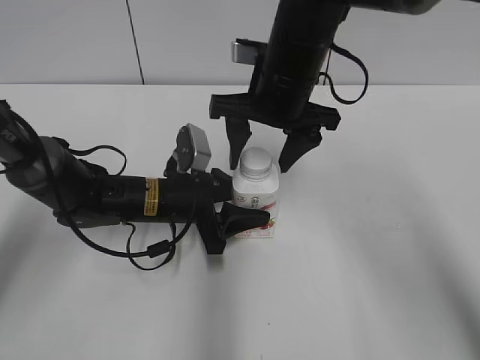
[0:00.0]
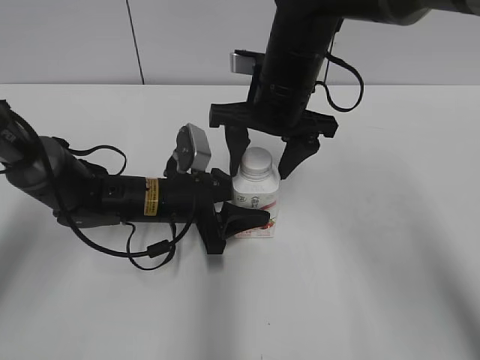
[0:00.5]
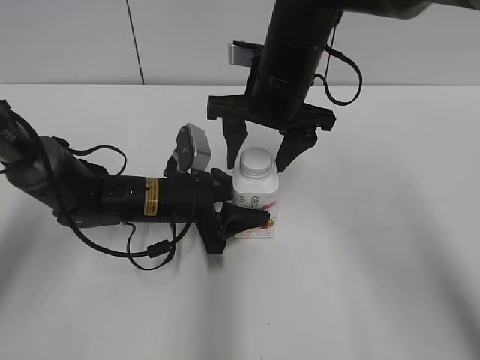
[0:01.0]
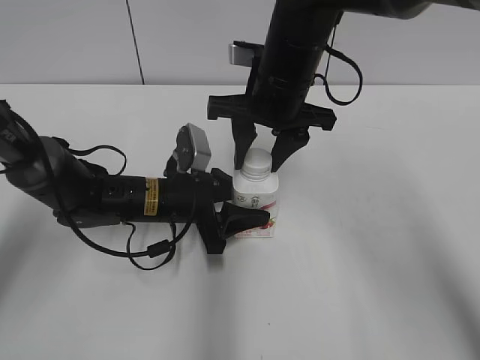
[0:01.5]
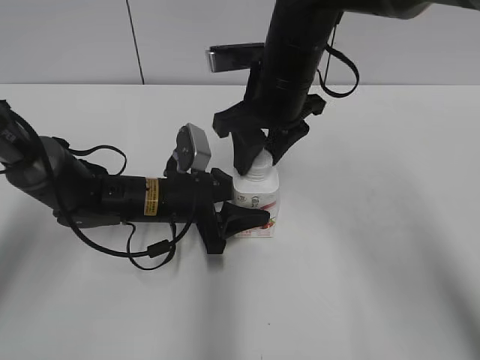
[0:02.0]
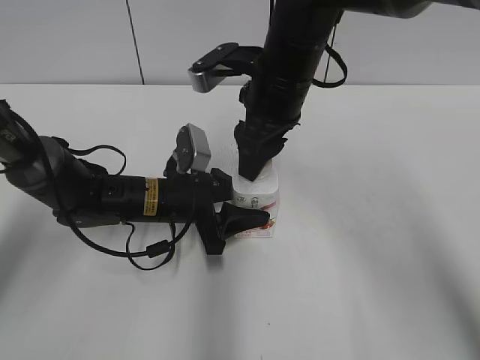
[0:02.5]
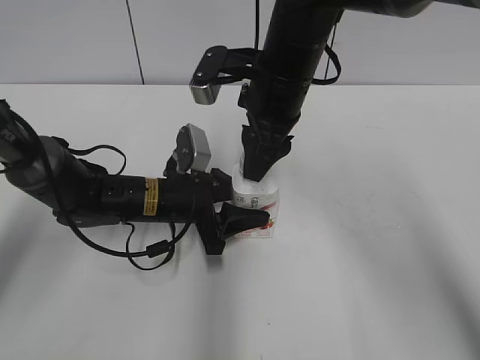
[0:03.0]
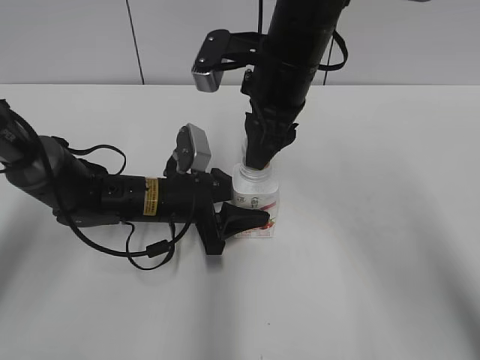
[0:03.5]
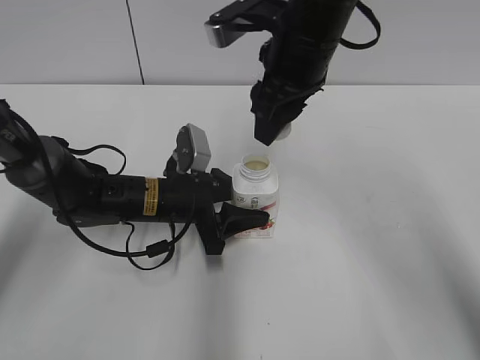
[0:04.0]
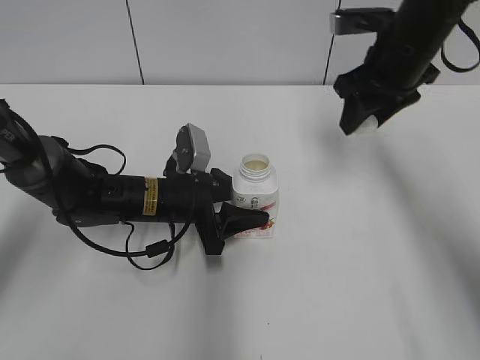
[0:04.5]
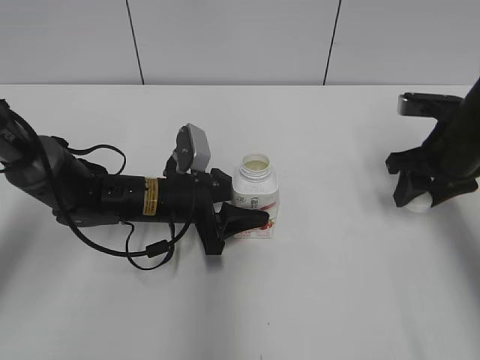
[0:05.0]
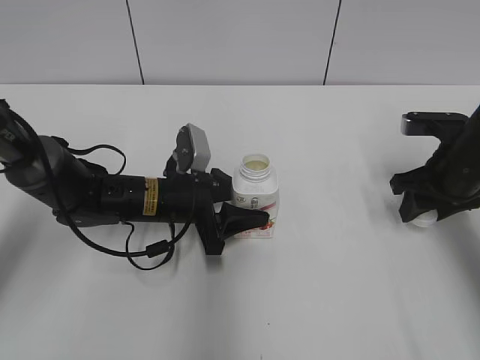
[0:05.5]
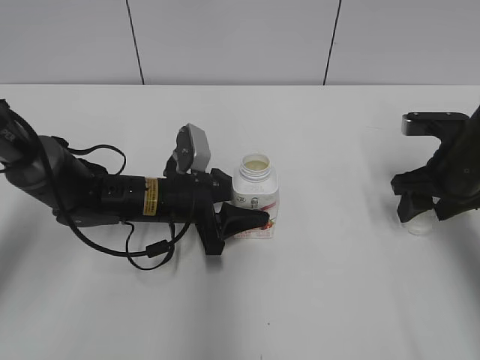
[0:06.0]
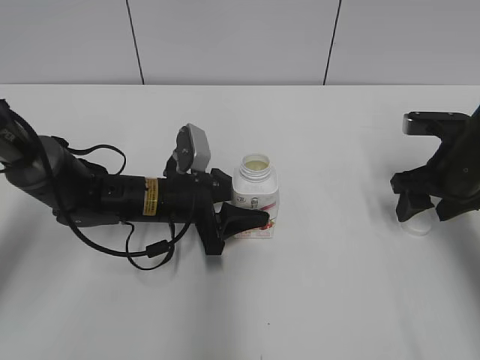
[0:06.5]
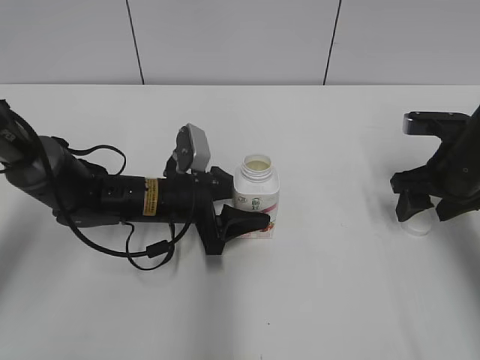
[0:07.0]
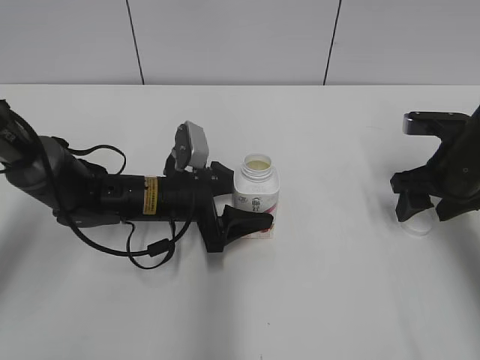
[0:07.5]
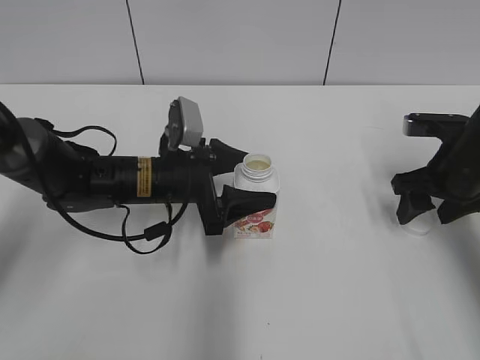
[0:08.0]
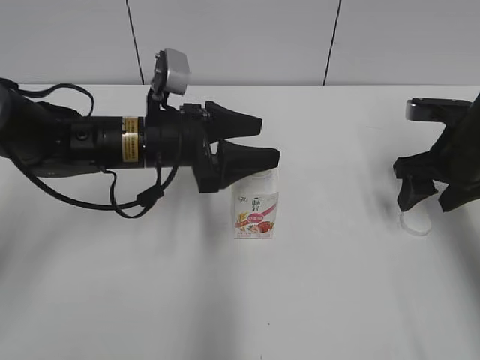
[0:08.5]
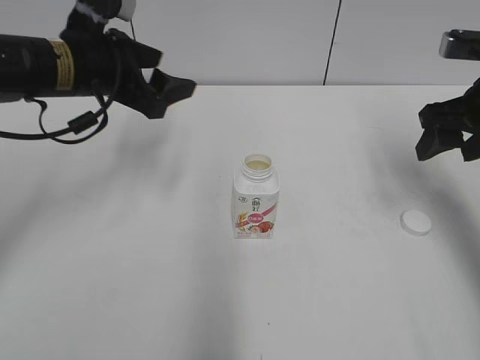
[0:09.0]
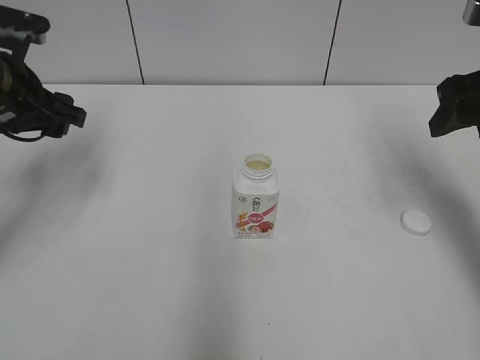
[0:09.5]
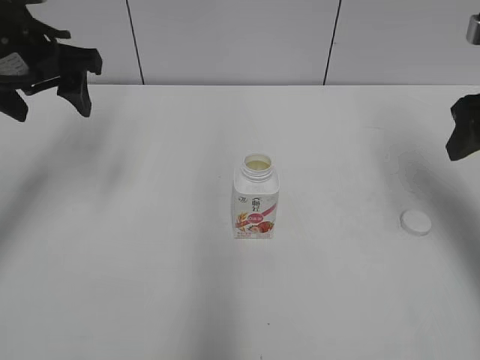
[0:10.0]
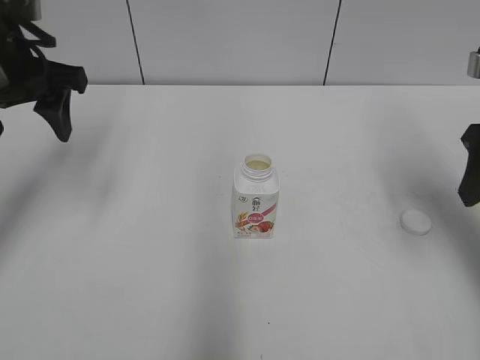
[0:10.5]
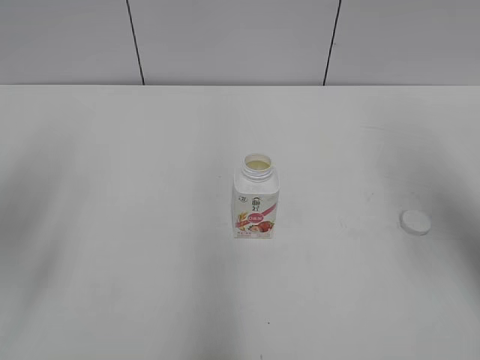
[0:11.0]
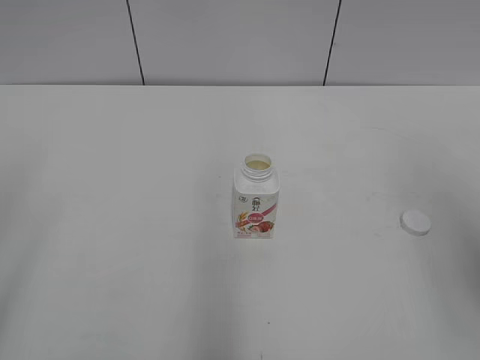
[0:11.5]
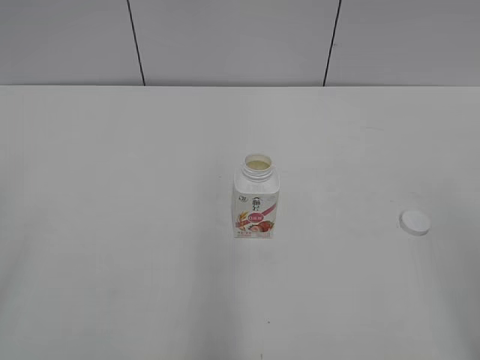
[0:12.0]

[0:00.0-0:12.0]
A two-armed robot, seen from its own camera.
Step, 0:04.0 to 0:06.0: Place the bottle cap on the right.
Step, 0:06.5 to 0:07.5: Place the Yili Changqing with the left hand.
0:00.0 to 0:02.0: The right gripper closes.
0:02.0 to 0:04.0: The right gripper changes place by approximately 5 cm.
0:04.0 to 0:06.0: The right gripper travels to the right and downward by roughly 25 cm, and opens its fingers.
0:06.0 to 0:08.0: The left gripper opens.
0:08.0 to 0:10.0: The left gripper goes some 25 cm upward and to the left, while the right gripper travels upward by some 15 cm.
0:10.0 to 0:12.0: Both grippers move backward, some 30 cm.
